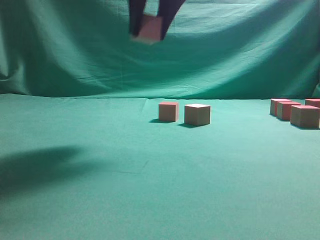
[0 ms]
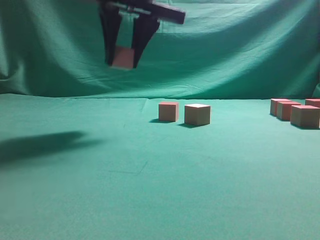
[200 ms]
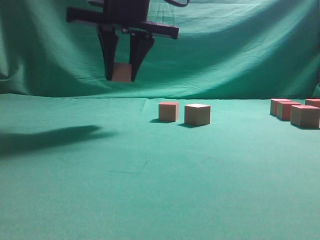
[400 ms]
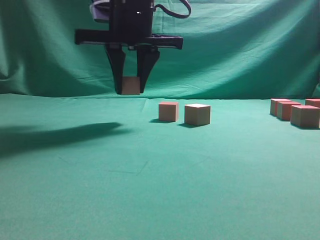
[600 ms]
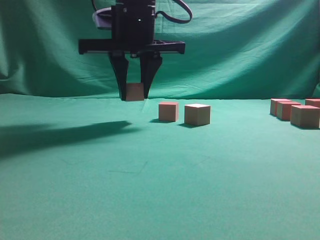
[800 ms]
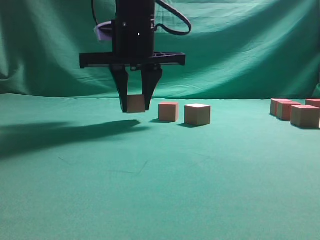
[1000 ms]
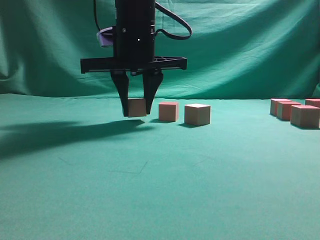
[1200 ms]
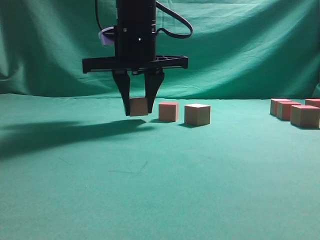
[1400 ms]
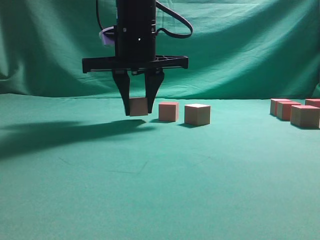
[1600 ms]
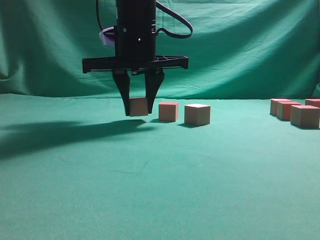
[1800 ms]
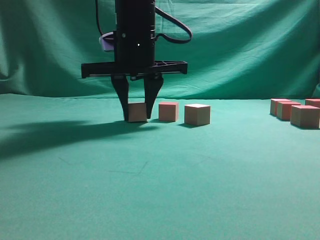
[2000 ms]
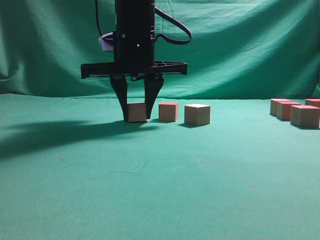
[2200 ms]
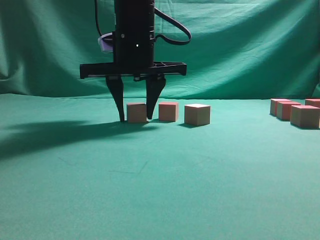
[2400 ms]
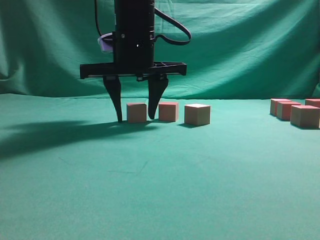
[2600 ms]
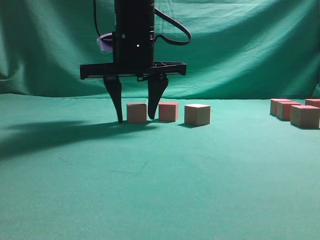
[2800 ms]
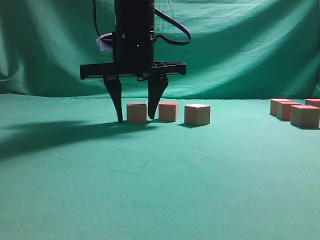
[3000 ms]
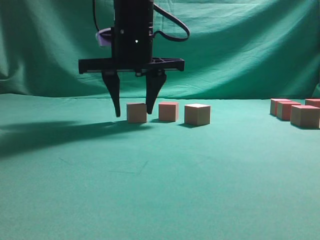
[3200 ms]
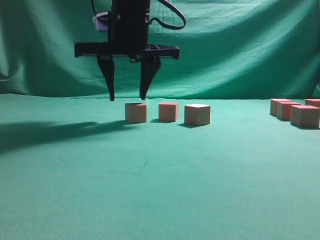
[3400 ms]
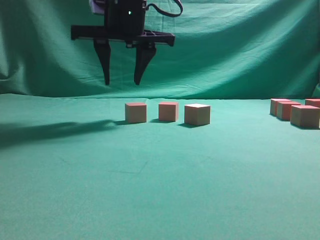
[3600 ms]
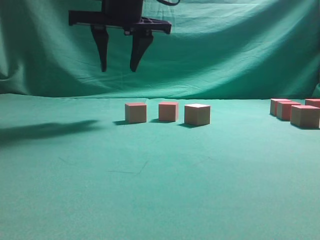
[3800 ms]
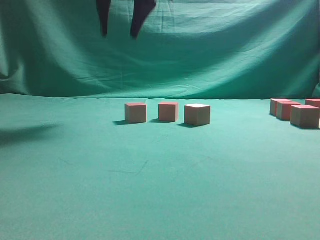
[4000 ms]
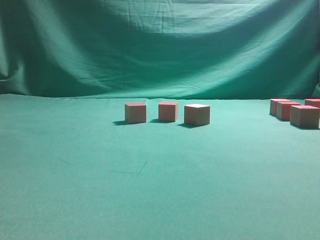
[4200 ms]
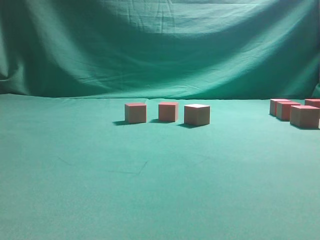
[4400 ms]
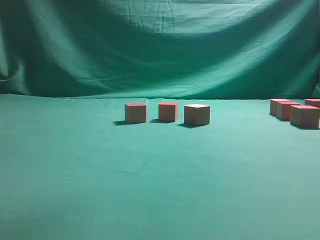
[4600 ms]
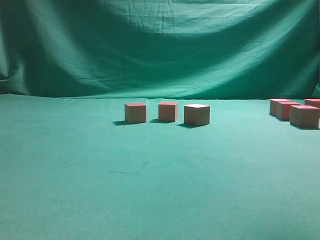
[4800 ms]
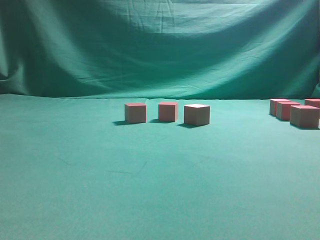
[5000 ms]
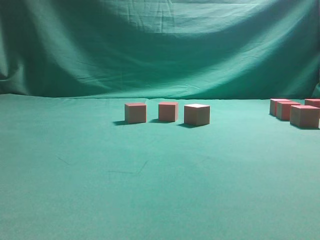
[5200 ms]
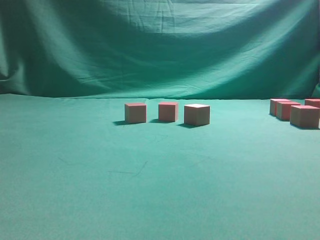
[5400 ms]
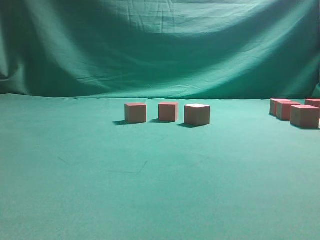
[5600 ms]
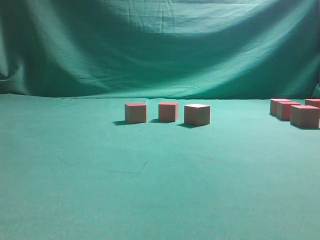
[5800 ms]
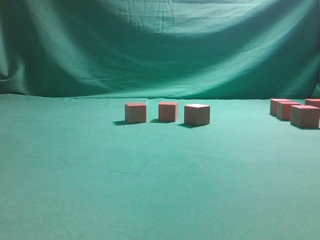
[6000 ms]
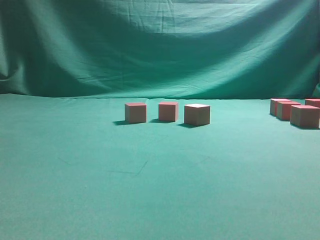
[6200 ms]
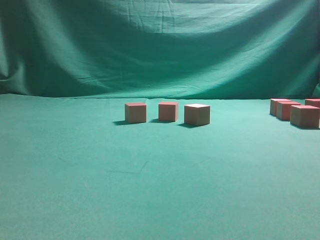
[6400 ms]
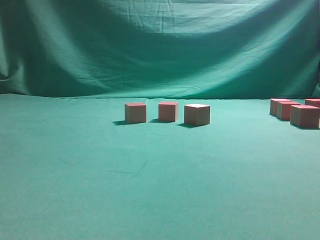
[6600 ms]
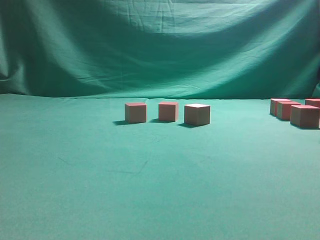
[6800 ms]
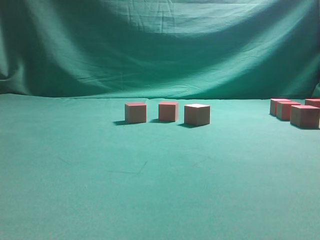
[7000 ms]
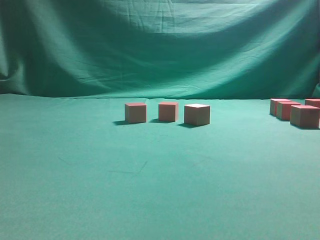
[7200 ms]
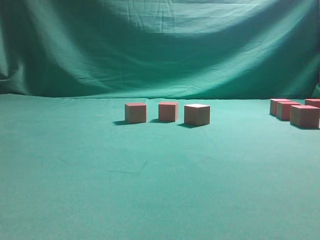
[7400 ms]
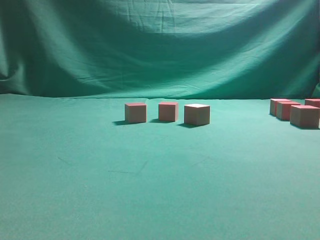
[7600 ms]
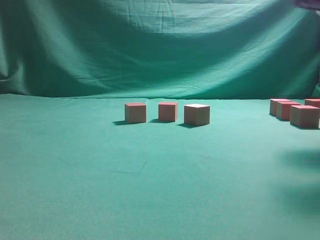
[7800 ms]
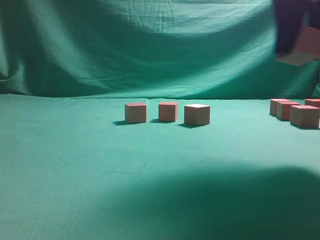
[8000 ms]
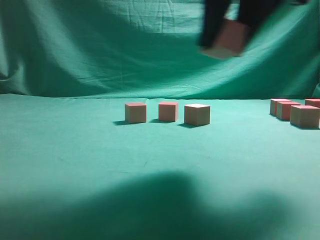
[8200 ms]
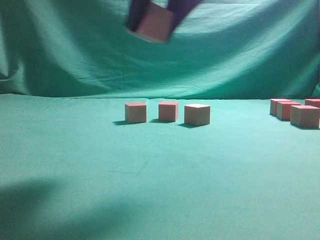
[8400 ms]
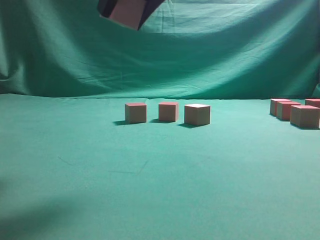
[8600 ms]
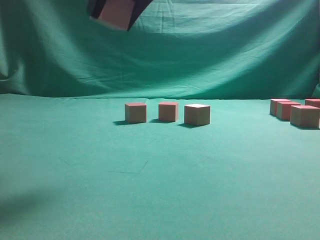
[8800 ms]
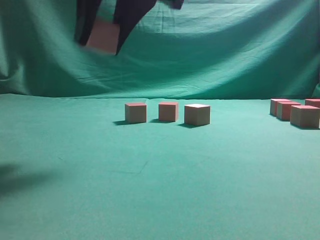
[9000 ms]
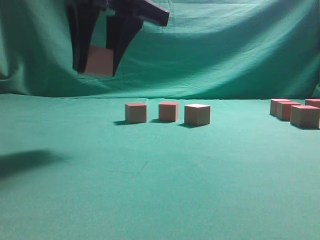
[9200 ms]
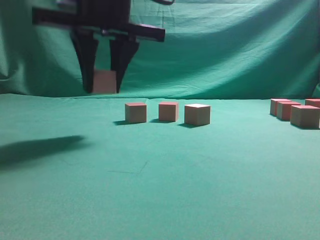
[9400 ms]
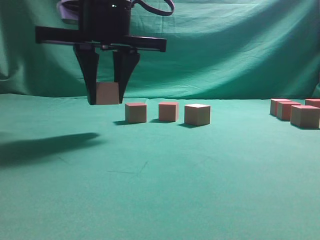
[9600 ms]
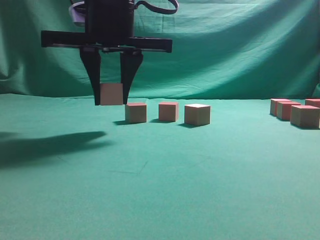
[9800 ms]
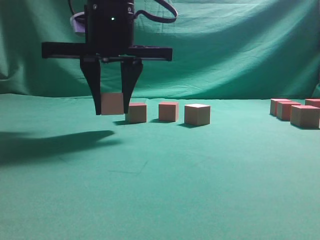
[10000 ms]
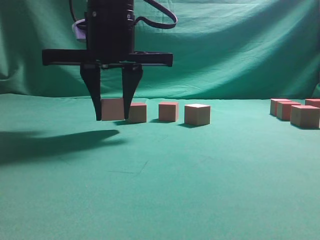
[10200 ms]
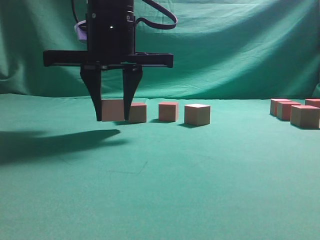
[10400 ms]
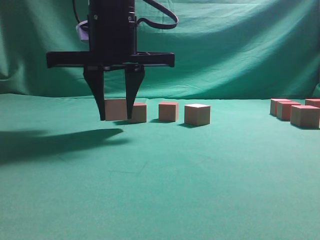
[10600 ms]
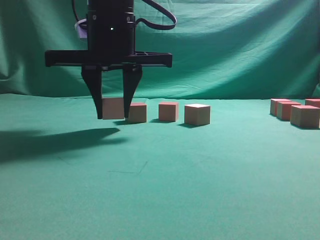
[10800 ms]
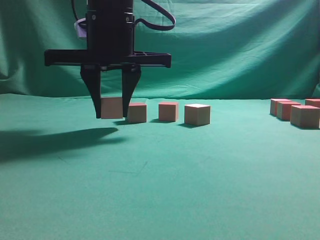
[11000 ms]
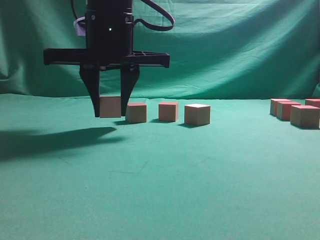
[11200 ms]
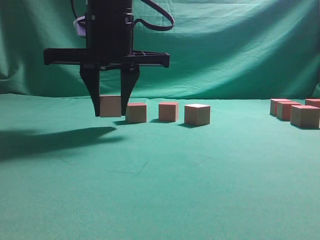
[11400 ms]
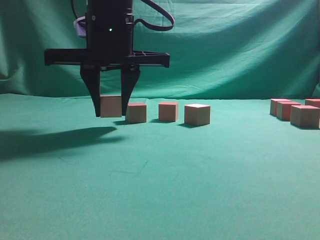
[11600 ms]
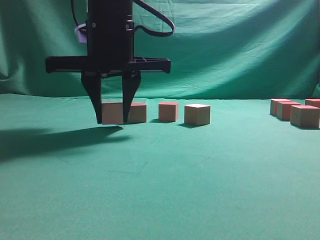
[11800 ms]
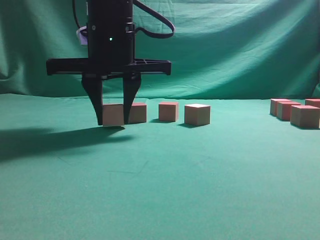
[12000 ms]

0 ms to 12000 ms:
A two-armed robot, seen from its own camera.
Task of the whole recording: pick up the multiple cubes in two columns one by one and place them in another position on the table.
Step, 0 ms to 3800 ms: Place the block at the correct position to assemble the letter S.
Step, 4000 ms to 7600 ms: Pick up the block on the table.
0 ms to 1600 ms: The right gripper is displaced downward and forward by about 15 cm.
1600 ms to 3000 ms: Neither gripper changes place.
3000 ms to 4400 ms: The right gripper shifts about 25 cm upward.
7600 ms to 9000 ms: The right gripper goes roughly 30 cm to the left.
9000 ms to 10400 ms: The right gripper is displaced downward and forward by roughly 10 cm.
10400 ms to 12000 ms: The grippers stay close to where they were, moving slightly.

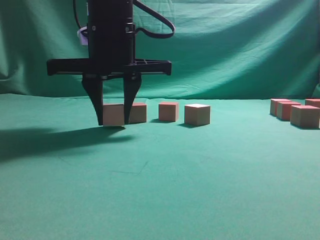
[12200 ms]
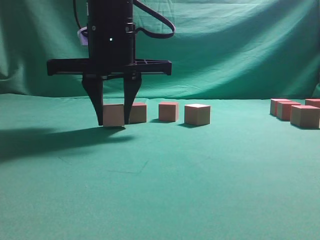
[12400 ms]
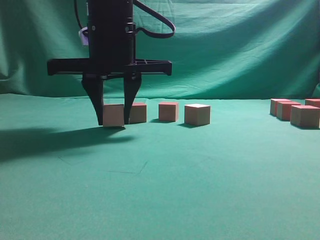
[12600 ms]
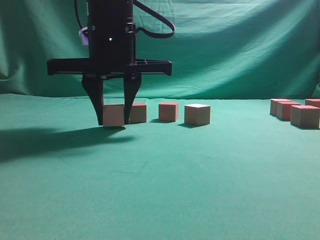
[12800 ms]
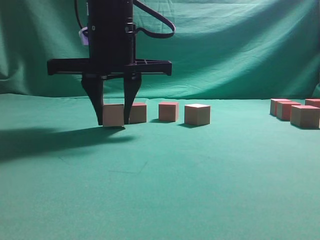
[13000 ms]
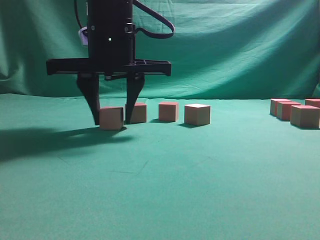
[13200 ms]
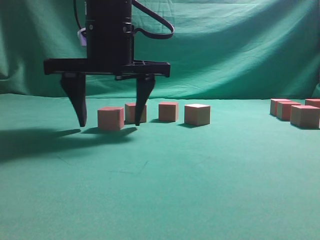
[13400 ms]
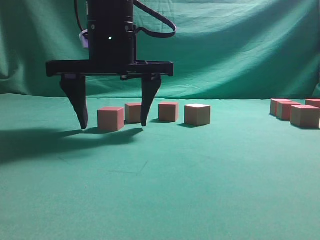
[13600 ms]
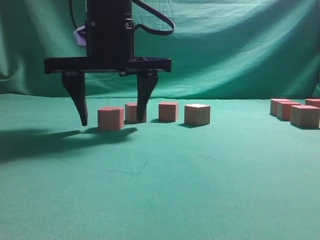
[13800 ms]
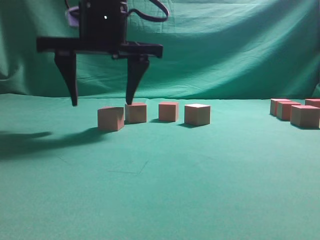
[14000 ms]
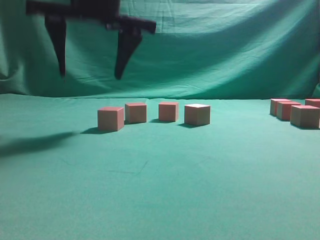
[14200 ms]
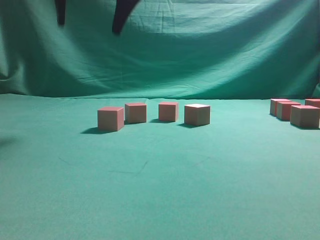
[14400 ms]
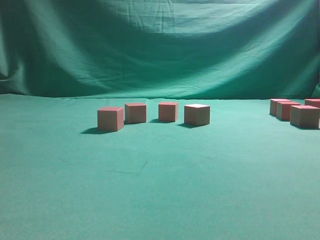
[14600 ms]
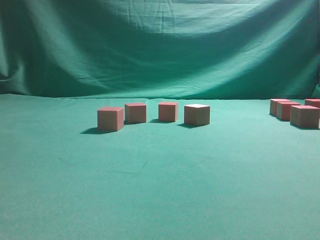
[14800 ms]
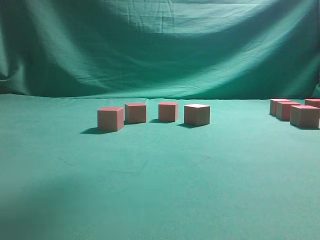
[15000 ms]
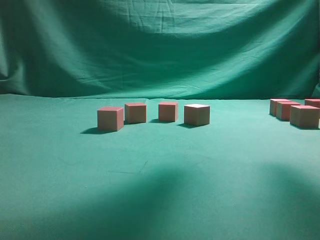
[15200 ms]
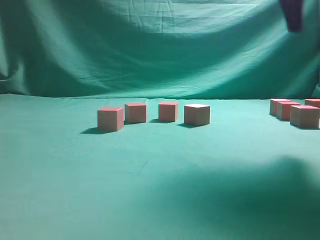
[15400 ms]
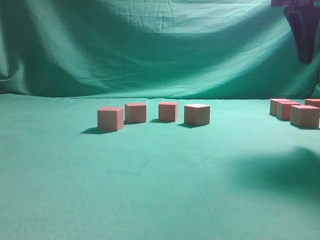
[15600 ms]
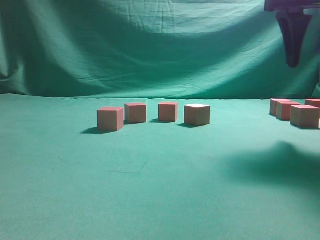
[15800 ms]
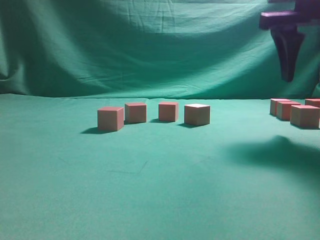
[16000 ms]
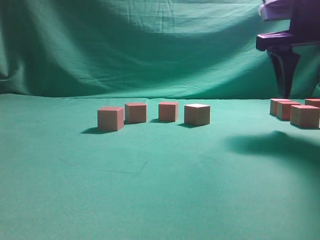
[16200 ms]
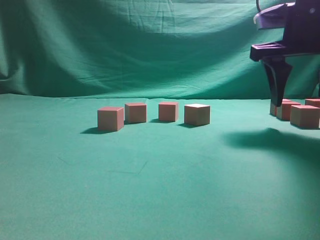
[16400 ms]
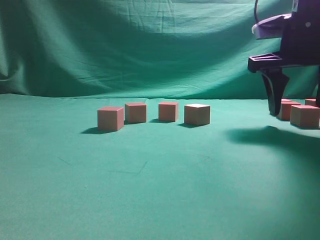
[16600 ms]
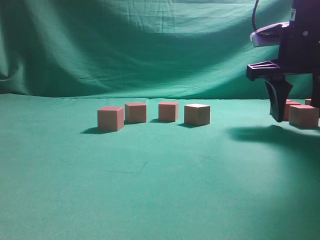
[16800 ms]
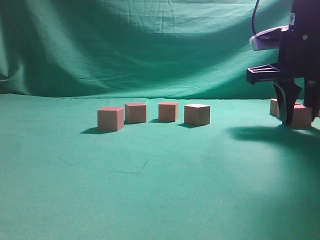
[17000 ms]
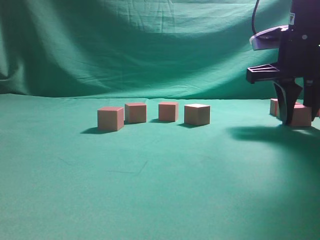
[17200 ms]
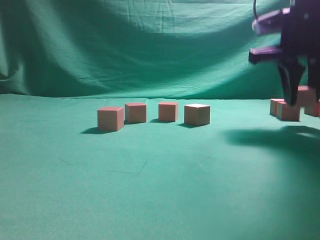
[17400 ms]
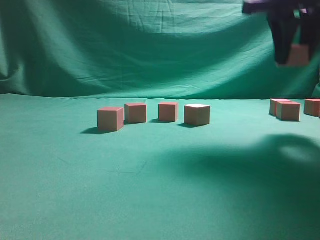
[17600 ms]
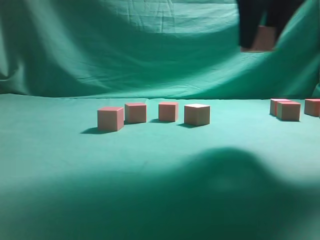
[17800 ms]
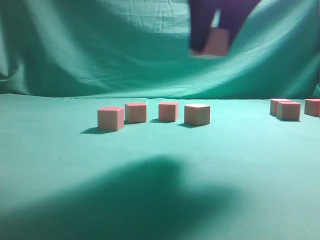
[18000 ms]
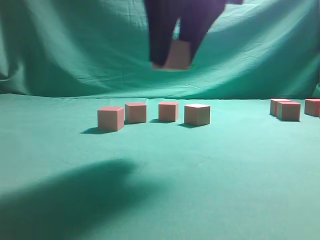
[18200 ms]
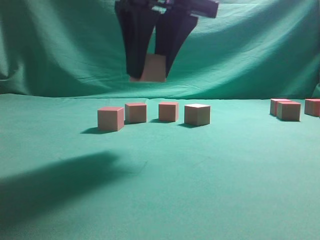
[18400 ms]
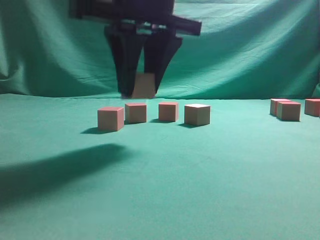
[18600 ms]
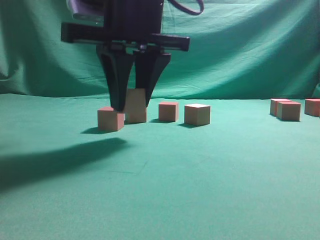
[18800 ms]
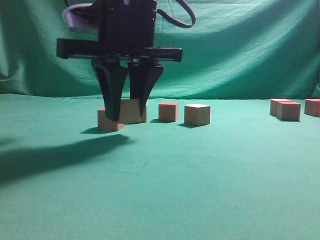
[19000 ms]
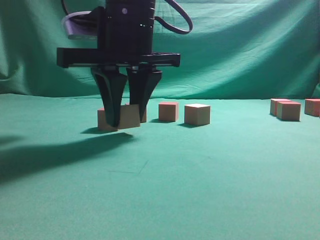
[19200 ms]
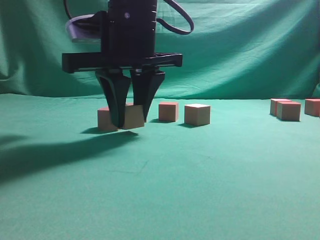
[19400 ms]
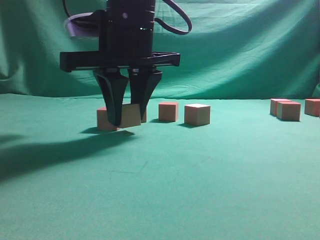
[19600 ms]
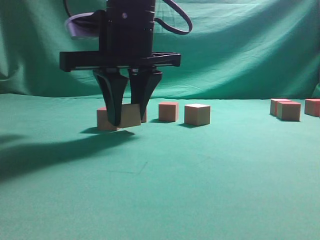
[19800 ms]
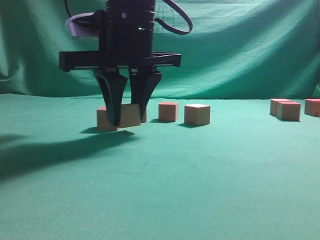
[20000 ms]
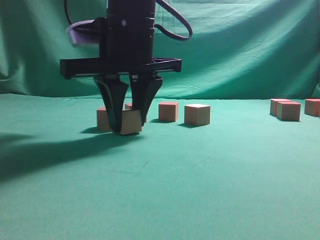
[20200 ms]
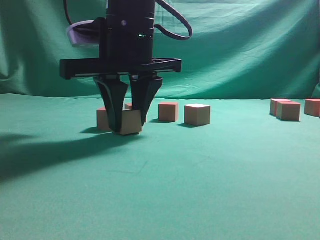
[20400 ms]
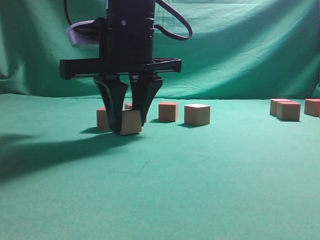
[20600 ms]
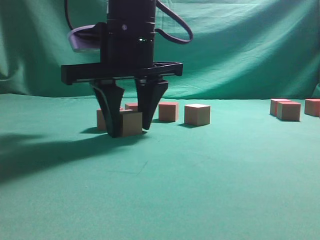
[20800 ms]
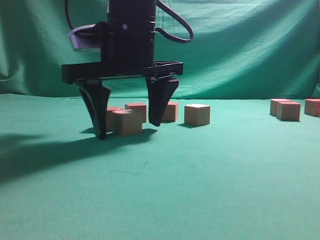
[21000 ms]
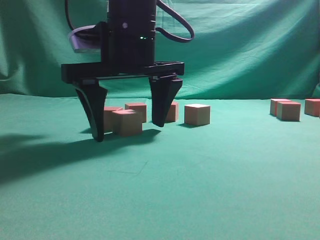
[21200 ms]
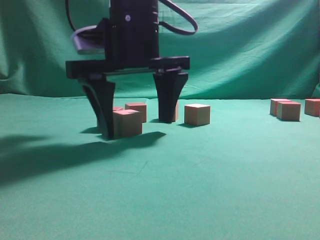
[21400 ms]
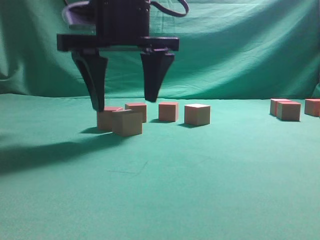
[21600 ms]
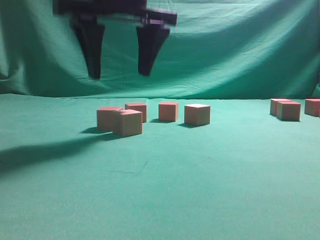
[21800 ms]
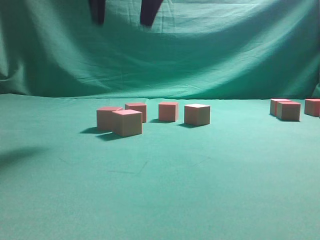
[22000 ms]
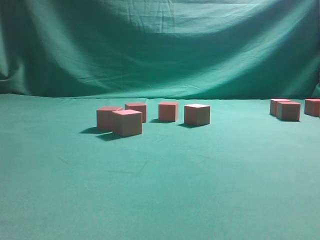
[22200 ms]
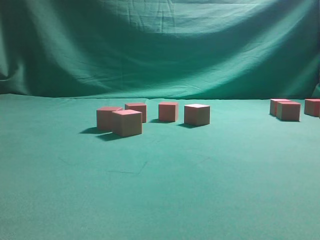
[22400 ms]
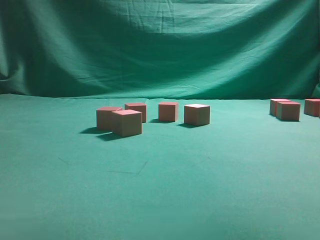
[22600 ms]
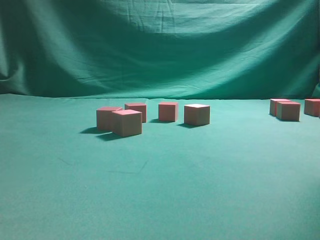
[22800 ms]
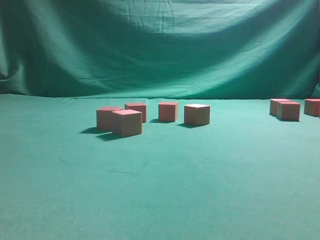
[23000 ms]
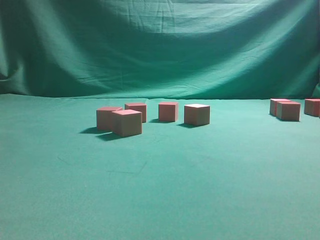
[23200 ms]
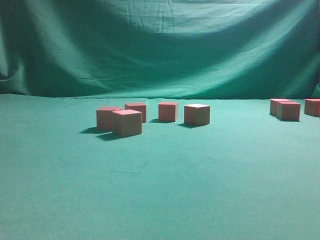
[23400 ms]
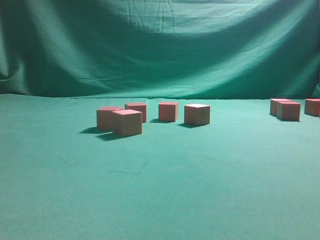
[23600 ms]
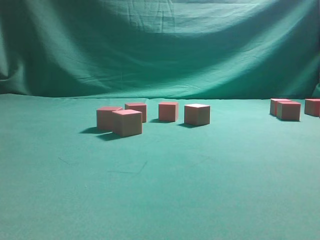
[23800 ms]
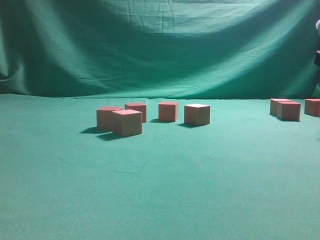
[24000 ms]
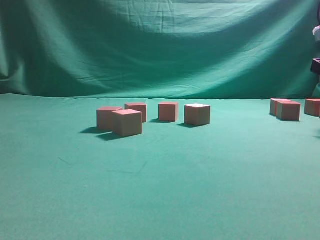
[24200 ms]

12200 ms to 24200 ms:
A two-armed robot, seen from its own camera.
Task of the whole recording: pick up the multiple cubes in two columns one by one and place them in another position on the table.
Step, 12200 ms to 14200 ms: Place the block at the correct position to assemble the letter S.
Step, 14400 ms to 17400 ms: Pick up the block on the table.
Step, 17600 ms to 21800 ms: Place the block at the correct position to assemble the letter S.
12200 ms to 13800 ms: The right gripper opens up.
13800 ms to 15200 ms: The right gripper travels to the right and upward by roughly 25 cm.
15200 ms to 16600 ms: The right gripper moves downward and to the right, roughly 20 cm.
16600 ms to 18200 ms: The right gripper shifts approximately 20 cm to the left, backward and upward, and closes up.
18200 ms to 19800 ms: The right gripper goes about 10 cm to the left, downward and forward.
19800 ms to 21200 ms: The right gripper opens.
21200 ms to 22600 ms: The right gripper is displaced upward and to the right by approximately 30 cm.
22600 ms to 24200 ms: The right gripper is displaced downward and to the right by about 30 cm.
